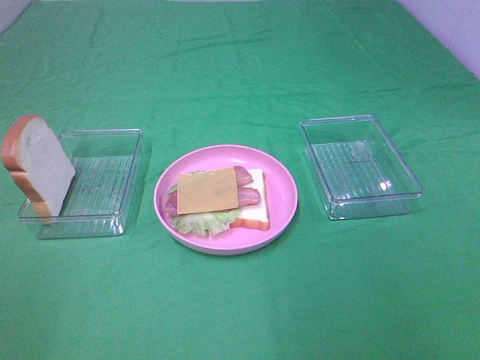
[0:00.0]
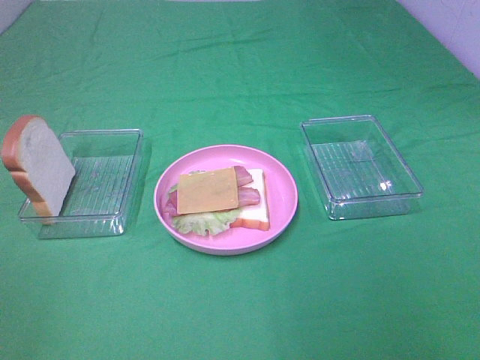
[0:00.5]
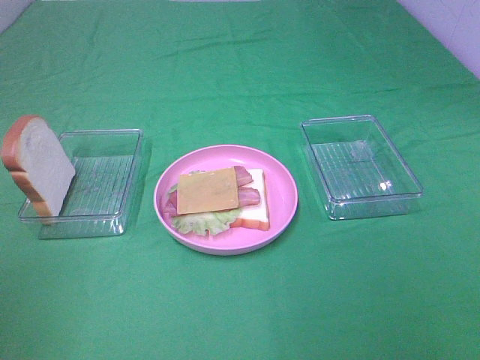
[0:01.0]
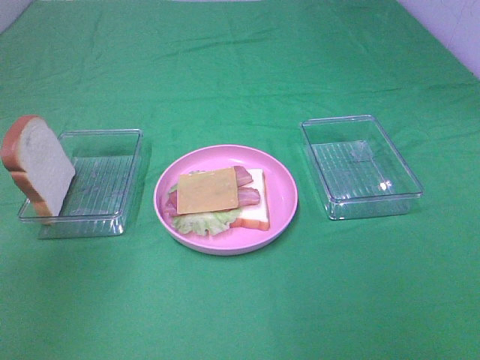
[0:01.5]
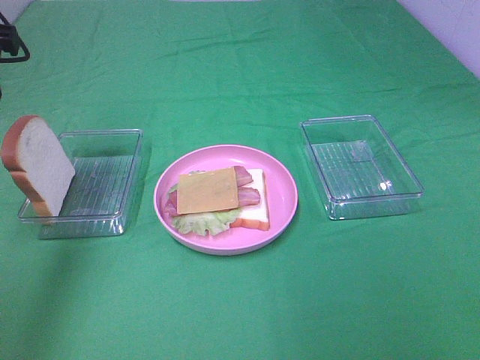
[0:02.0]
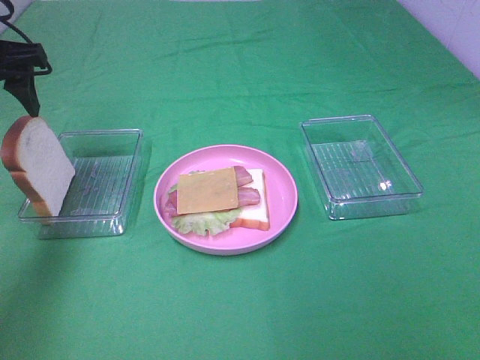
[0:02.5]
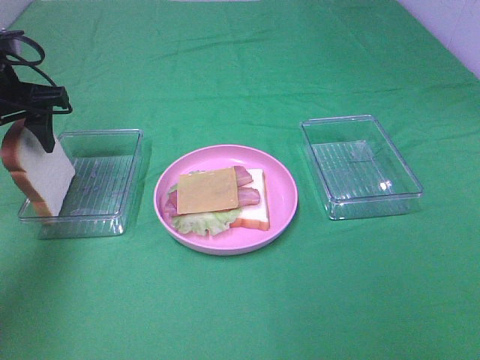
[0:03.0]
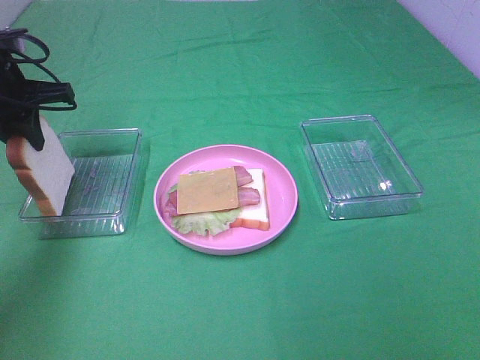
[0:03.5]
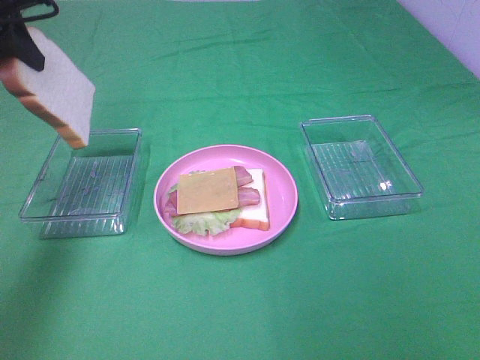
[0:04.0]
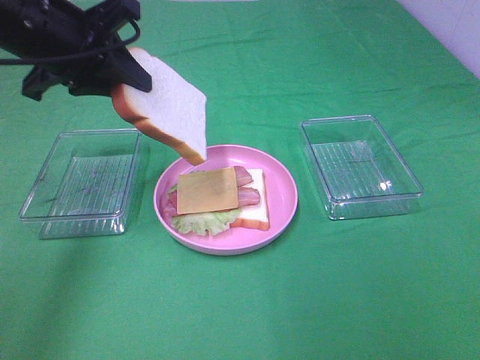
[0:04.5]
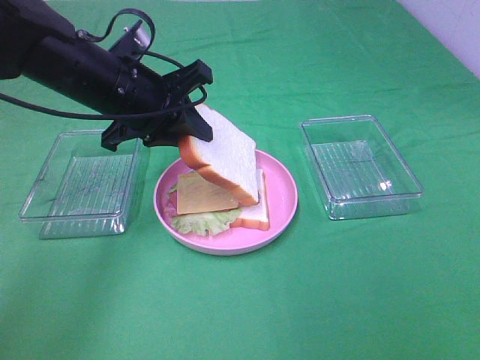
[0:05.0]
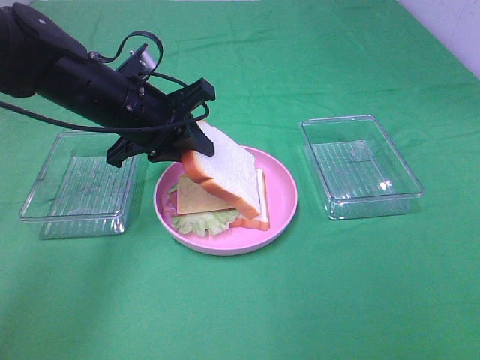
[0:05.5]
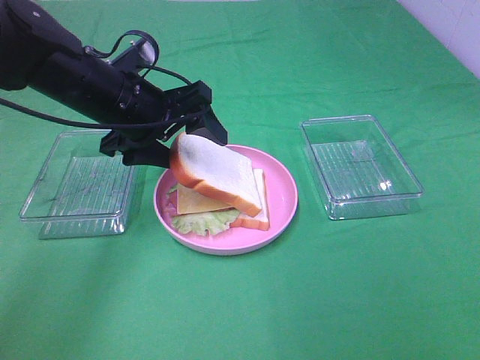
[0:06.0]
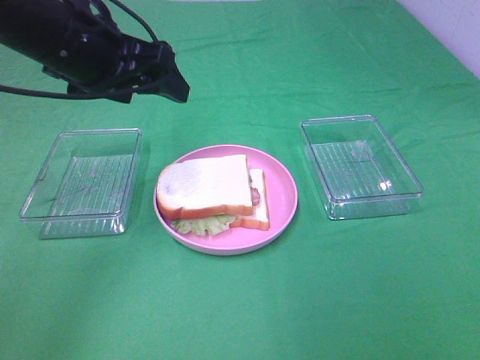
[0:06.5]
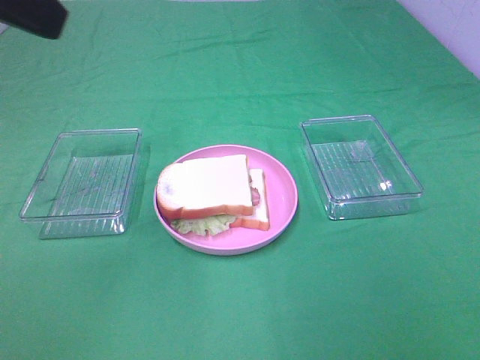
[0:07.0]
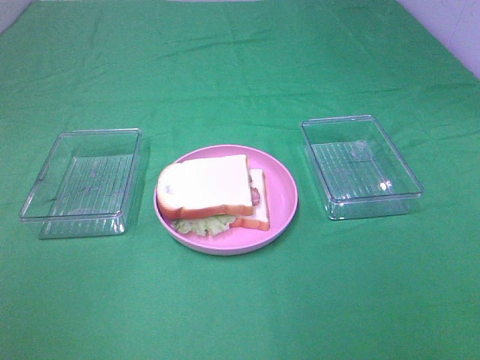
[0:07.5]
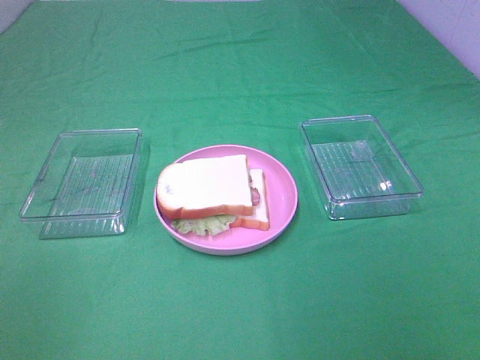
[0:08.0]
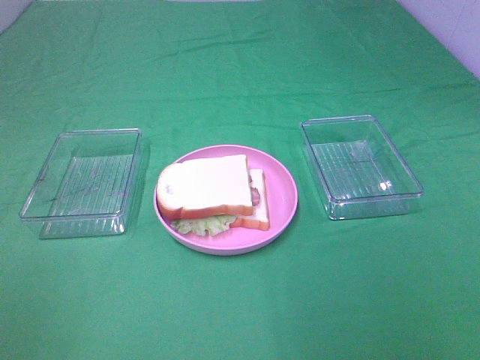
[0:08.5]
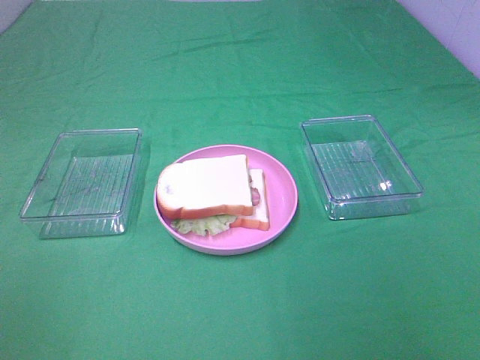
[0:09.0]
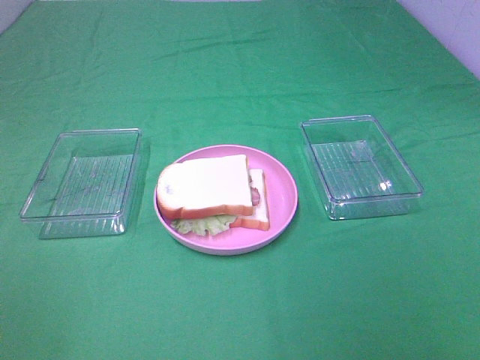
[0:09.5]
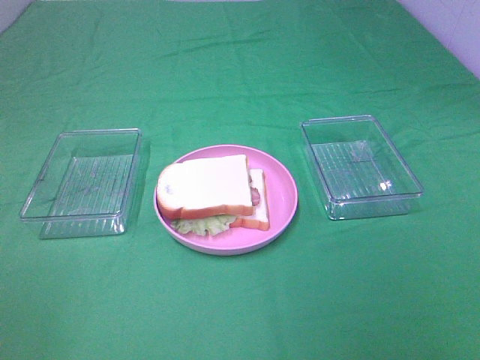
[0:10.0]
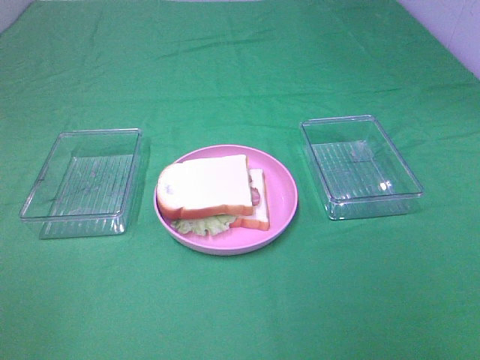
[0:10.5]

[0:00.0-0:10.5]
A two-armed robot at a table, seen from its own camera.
Task of the whole recording: Make sandwiches.
Step, 0:00.0 to 0:03.0: Left hand:grab the bread slice.
Step, 0:03.5 to 0:06.5: Left hand:place the bread slice on the cheese slice.
0:00.0 to 0:02.0: The left gripper heads forward, covering about 30 cm.
0:02.0 to 0:04.0: The left gripper reaches about 10 cm downward, then returns, and closes up.
0:04.0 to 0:06.5: The left gripper heads to the right, covering about 10 cm, travels downward and back again, roughly 15 cm each way, and opens up.
0:06.5 to 0:08.5: The left gripper heads backward and to the left, covering roughly 35 cm.

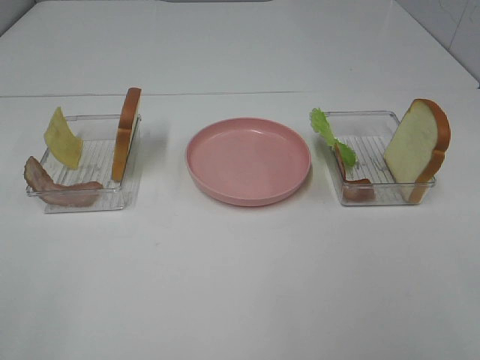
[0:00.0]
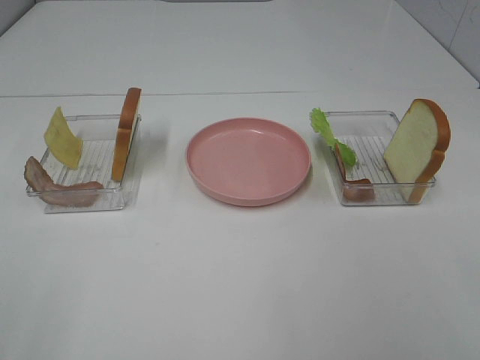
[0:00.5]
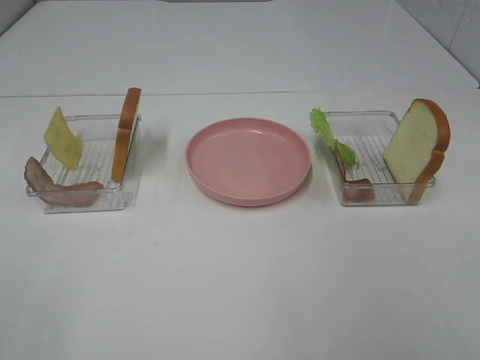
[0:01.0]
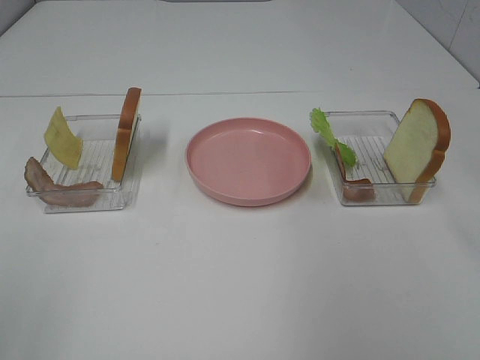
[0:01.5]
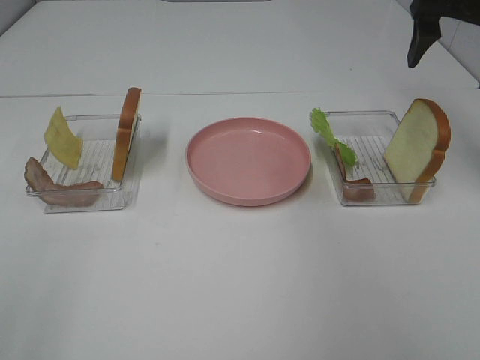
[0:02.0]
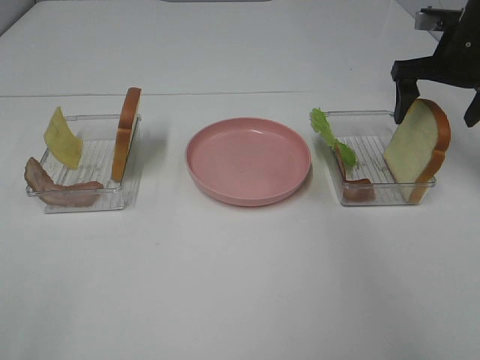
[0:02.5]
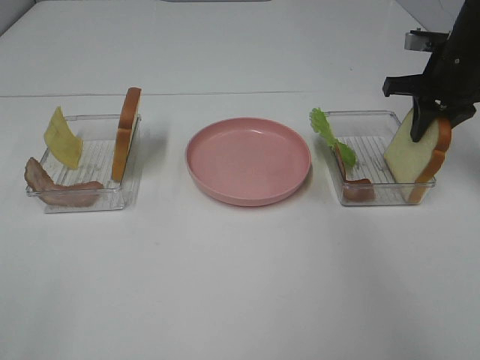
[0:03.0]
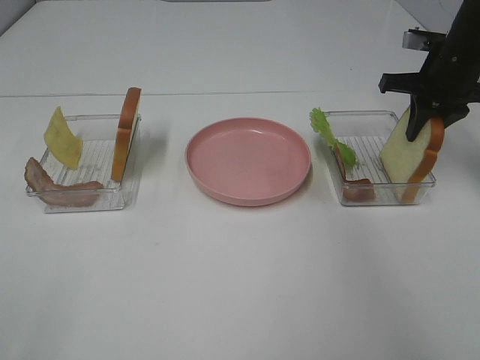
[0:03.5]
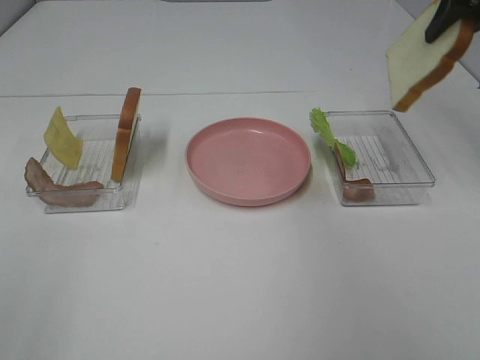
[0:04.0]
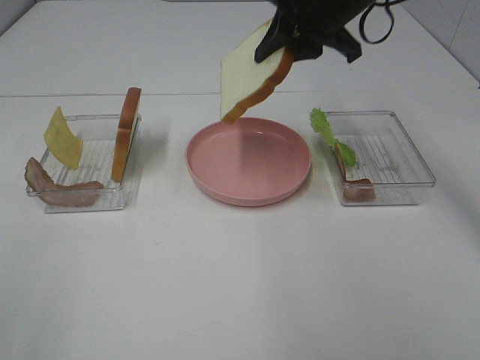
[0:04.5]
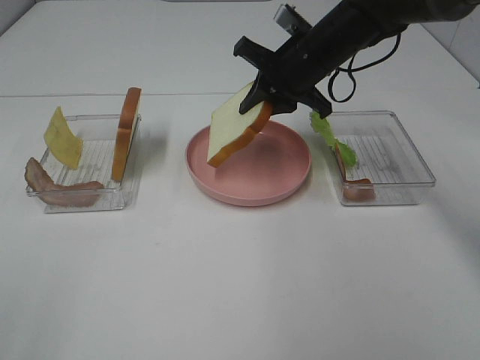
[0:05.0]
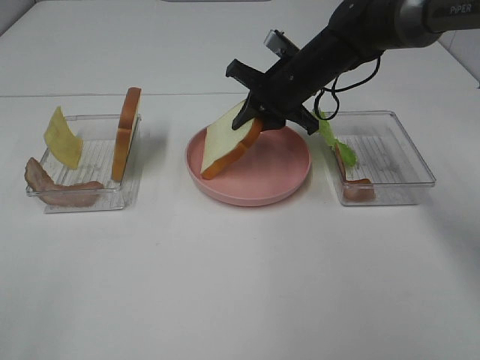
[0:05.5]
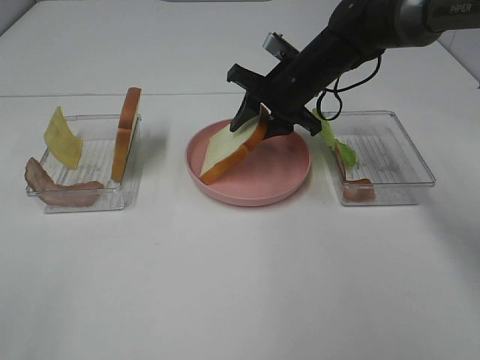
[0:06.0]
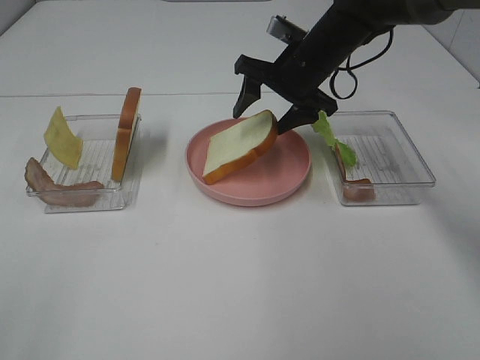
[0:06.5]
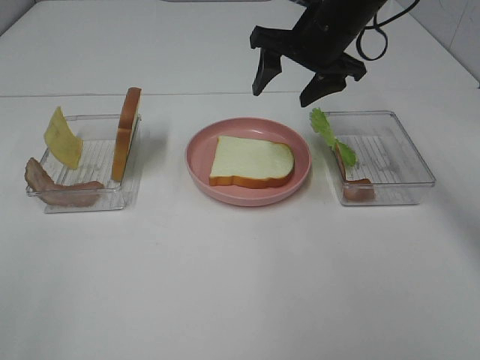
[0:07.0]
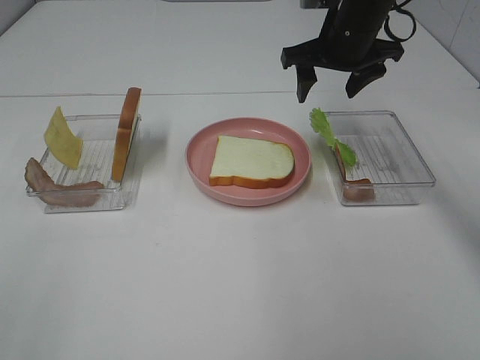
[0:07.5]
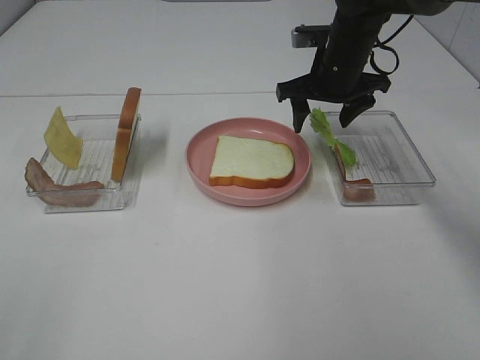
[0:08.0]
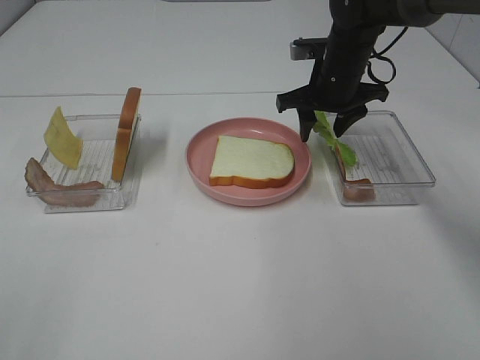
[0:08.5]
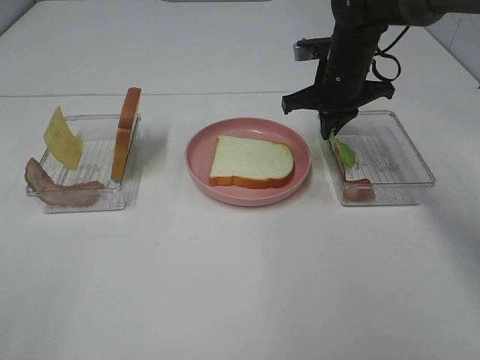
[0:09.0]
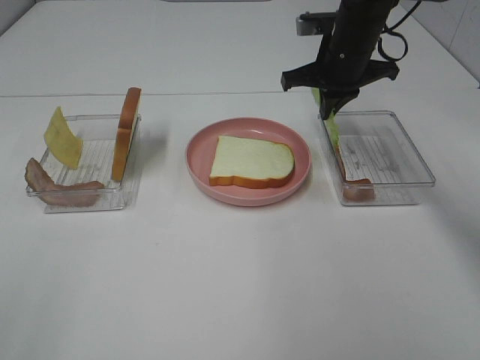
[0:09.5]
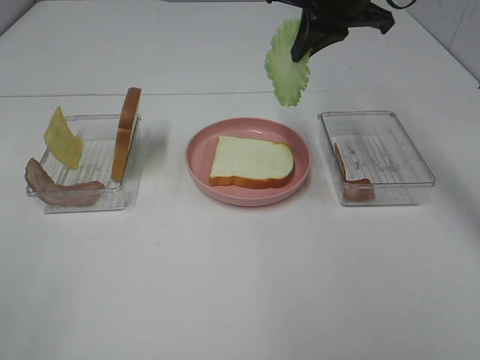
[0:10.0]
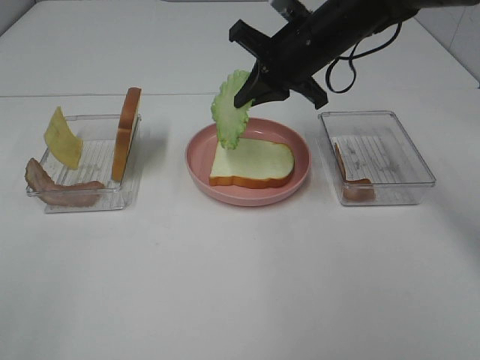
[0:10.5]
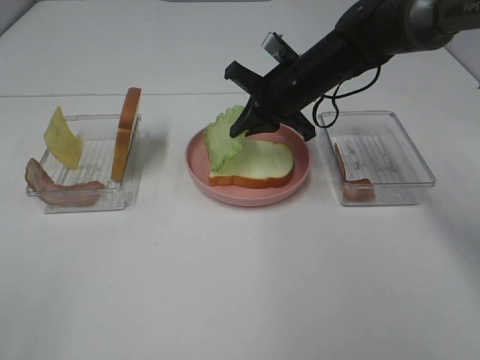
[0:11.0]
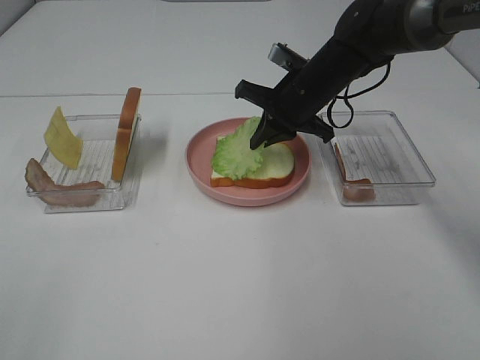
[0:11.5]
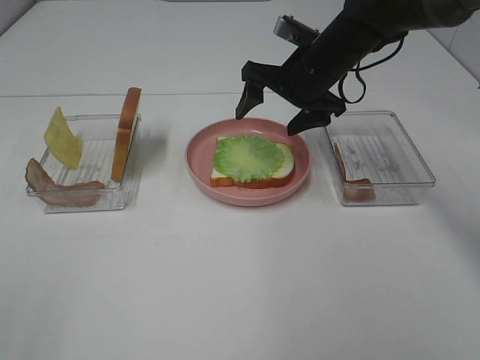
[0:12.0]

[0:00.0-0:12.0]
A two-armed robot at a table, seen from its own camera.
Task of the whole recording: Make sandwiches.
Step, 0:00.0 to 0:03.0: Right hand:grab the bread slice.
Step, 0:03.5 to 0:06.5: Right hand:place the bread slice on the plate.
Step, 0:07.0 to 0:09.0: Right hand:grab the lettuce slice.
Step, 0:09.5 to 0:11.5: Right hand:place the lettuce slice on the bread slice.
0:00.0 to 0:02.0: The right gripper shifts approximately 40 cm forward.
0:02.0 to 0:04.0: The right gripper goes downward and returns, roughly 10 cm each way, and closes up.
0:04.0 to 0:06.0: The right gripper heads downward and to the left, covering some 25 cm.
0:06.0 to 0:08.0: The right gripper goes upward and returns, roughly 10 cm each way.
0:08.0 to 0:10.0: The right gripper is displaced upward by about 10 cm, and closes up.
0:10.0 to 0:12.0: The right gripper travels downward by approximately 10 cm, and opens its fingers.

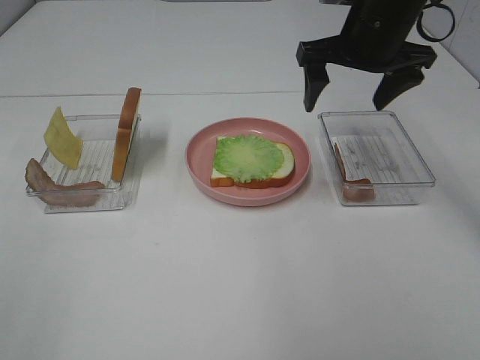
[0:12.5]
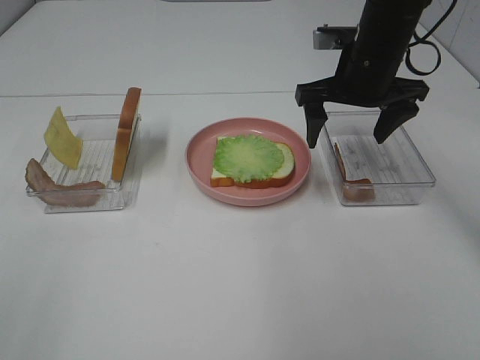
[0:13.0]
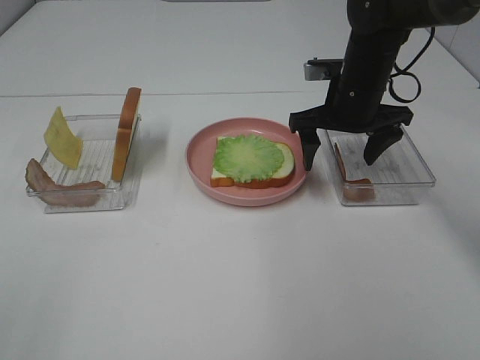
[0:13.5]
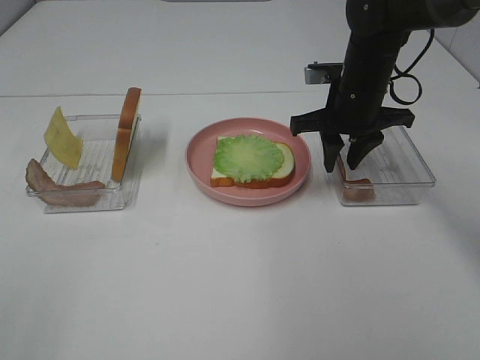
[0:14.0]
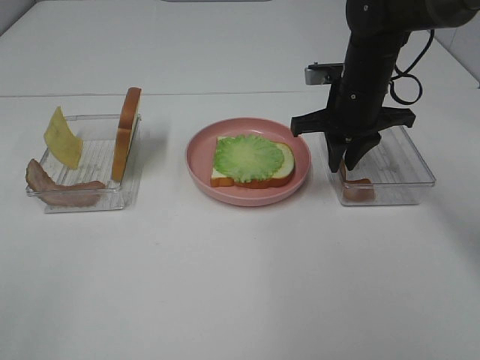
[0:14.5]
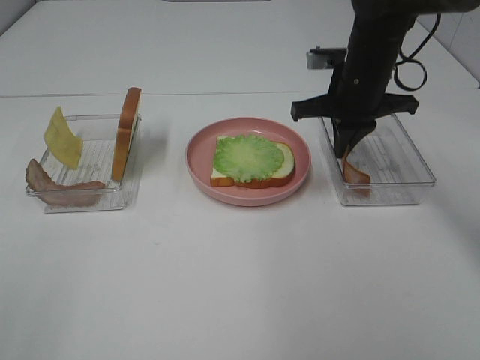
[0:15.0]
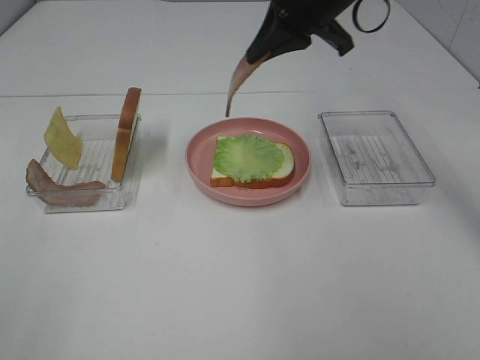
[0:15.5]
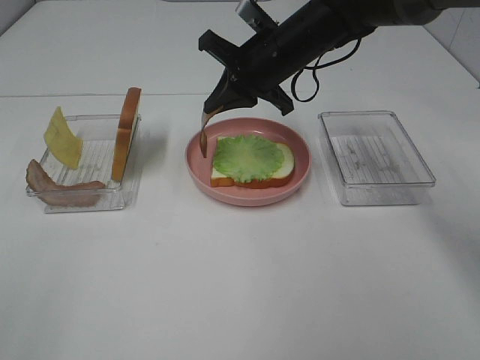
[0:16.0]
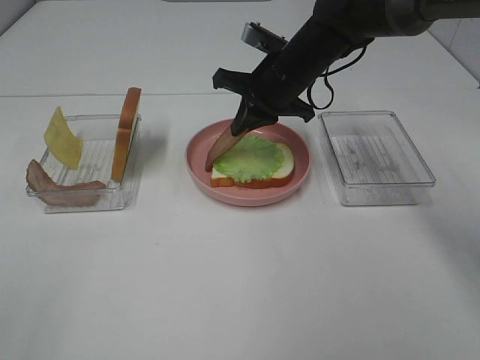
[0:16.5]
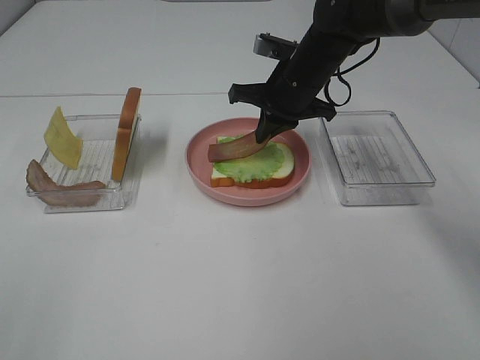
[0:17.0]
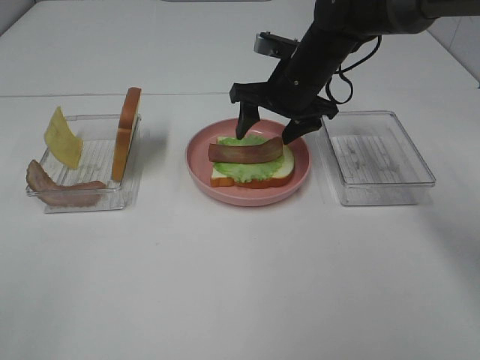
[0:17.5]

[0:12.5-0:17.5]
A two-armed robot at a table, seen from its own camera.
Task of the whole recording: Make sandwiches.
Step, 0:12.5 to 0:14.5: Right hand:grab the bacon.
0:12.5 to 0:15.0: The right gripper is displaced downward by some 5 cm, and closes its fingers.
0:15.0 to 0:17.5: The right gripper is displaced to the left by some 5 cm, travels upward and back again, approximately 10 cm each way, and opens up.
